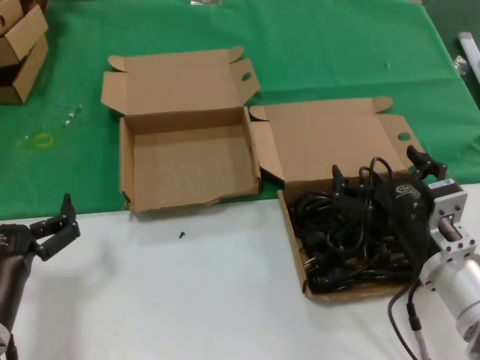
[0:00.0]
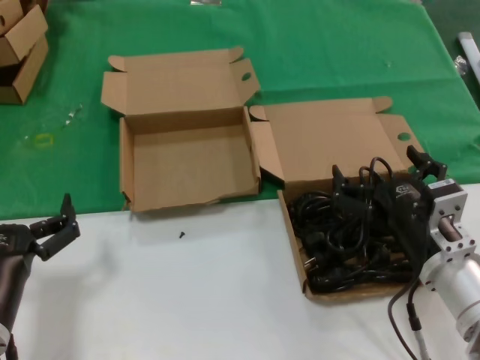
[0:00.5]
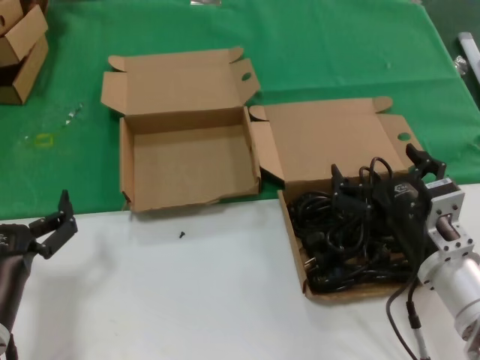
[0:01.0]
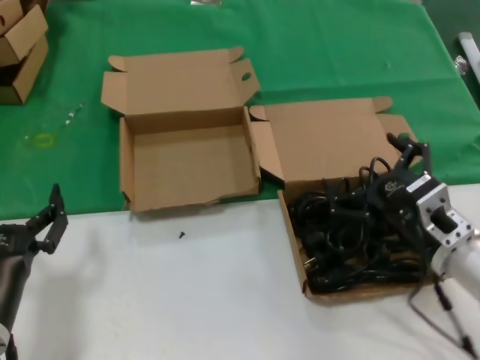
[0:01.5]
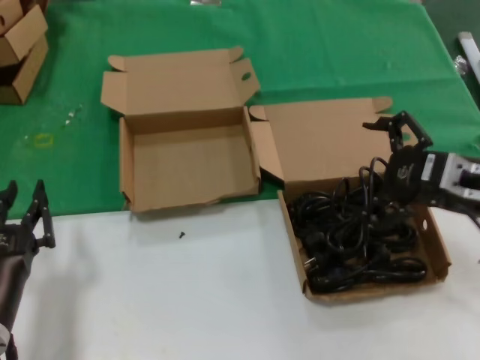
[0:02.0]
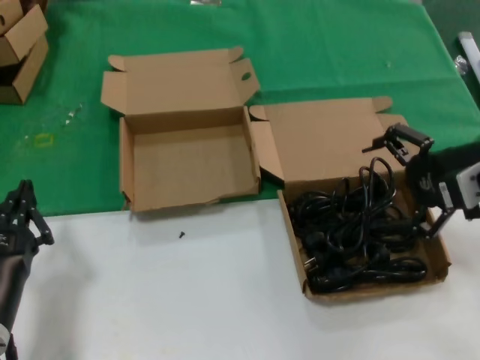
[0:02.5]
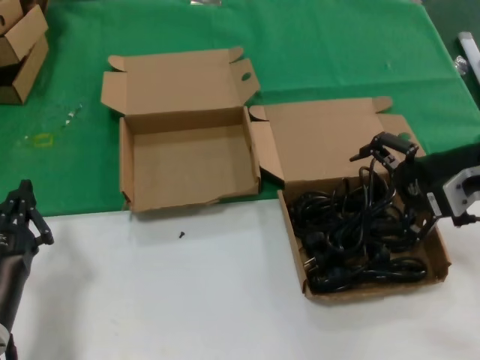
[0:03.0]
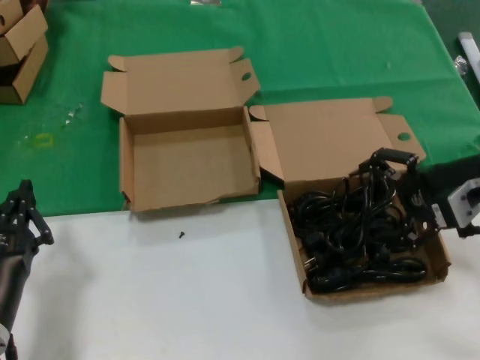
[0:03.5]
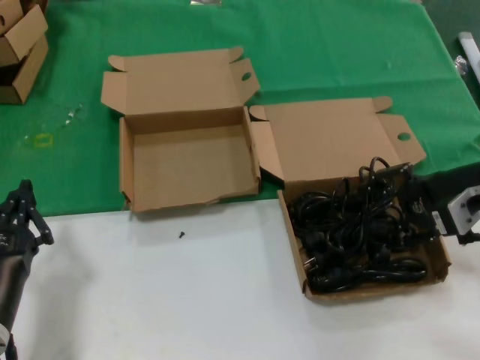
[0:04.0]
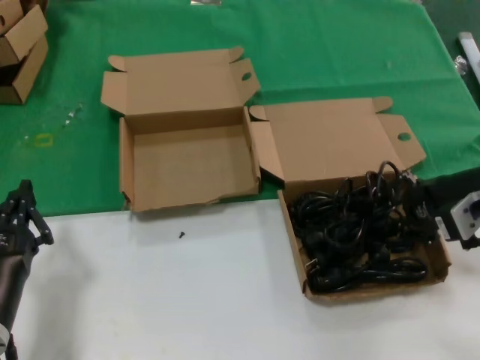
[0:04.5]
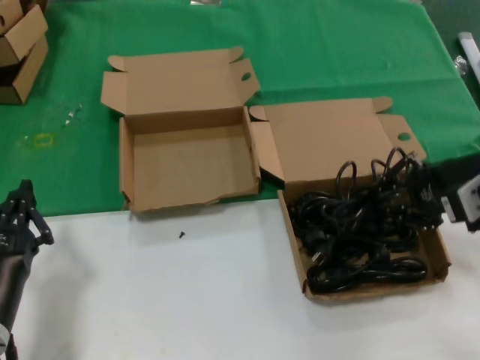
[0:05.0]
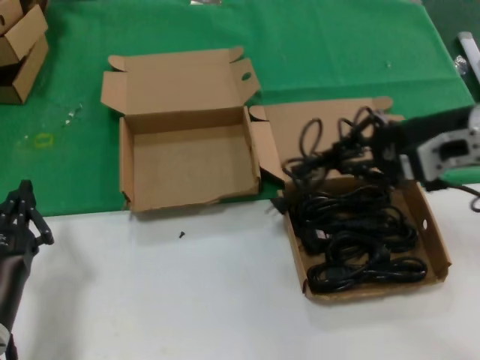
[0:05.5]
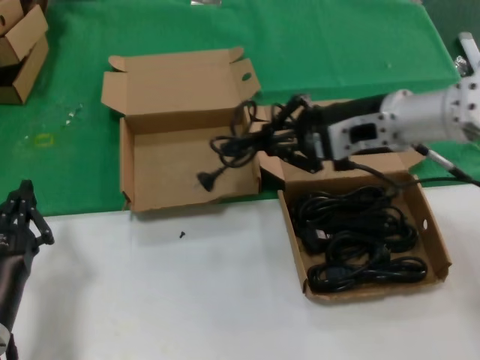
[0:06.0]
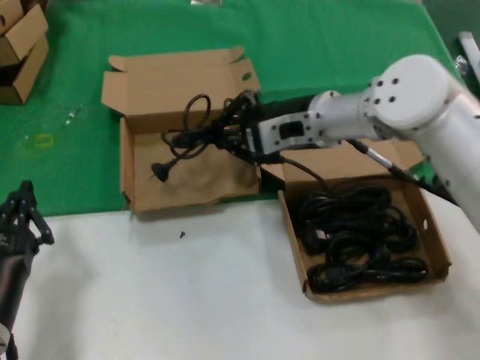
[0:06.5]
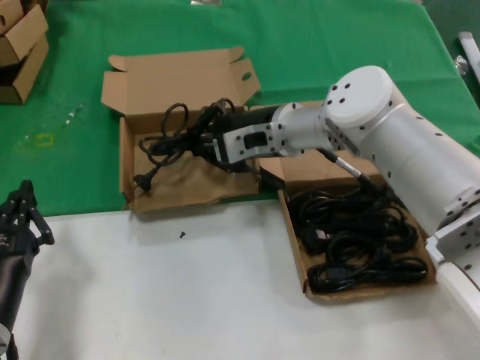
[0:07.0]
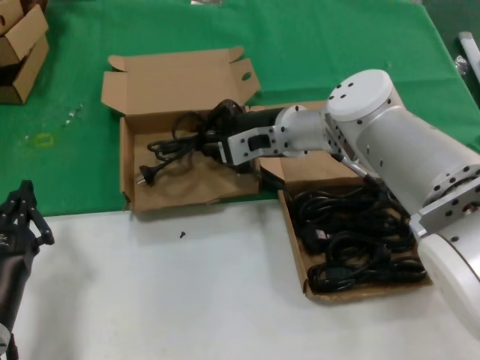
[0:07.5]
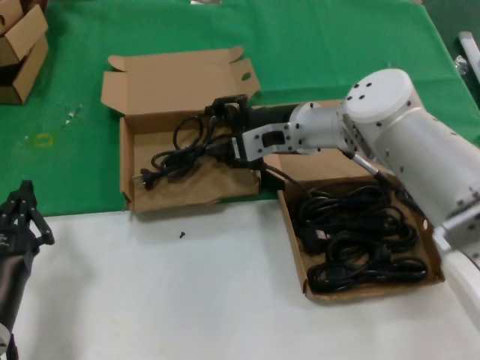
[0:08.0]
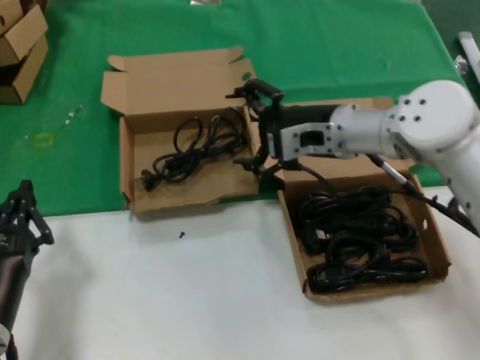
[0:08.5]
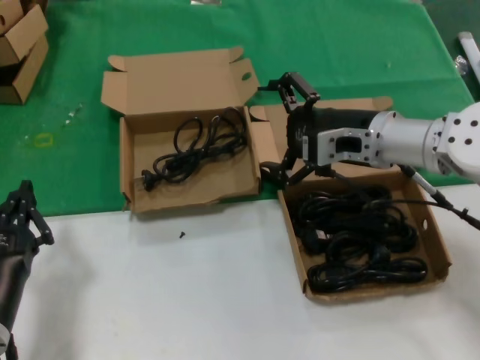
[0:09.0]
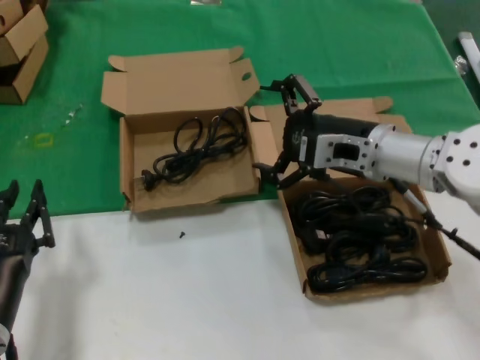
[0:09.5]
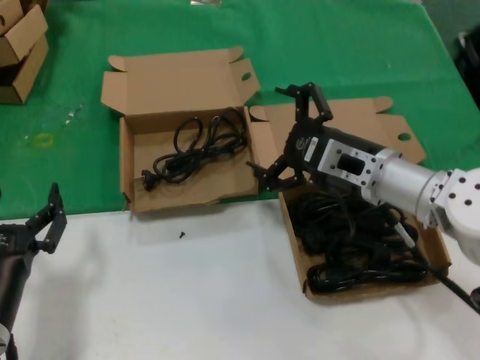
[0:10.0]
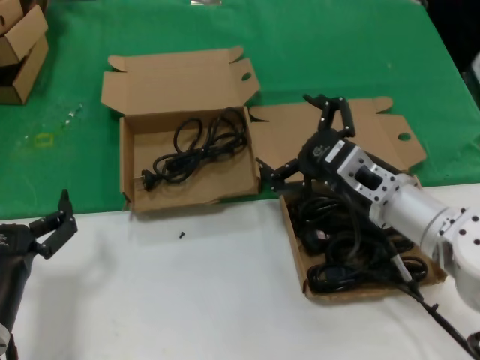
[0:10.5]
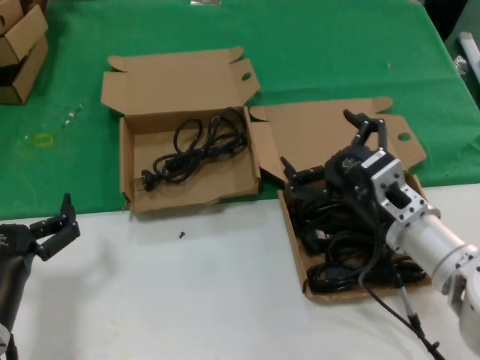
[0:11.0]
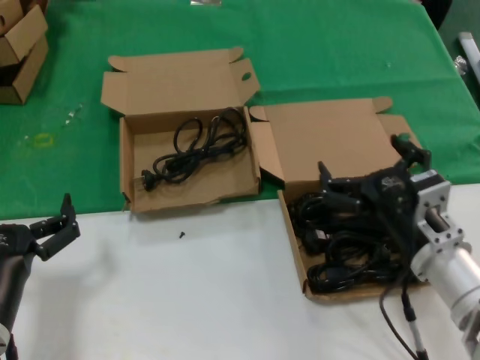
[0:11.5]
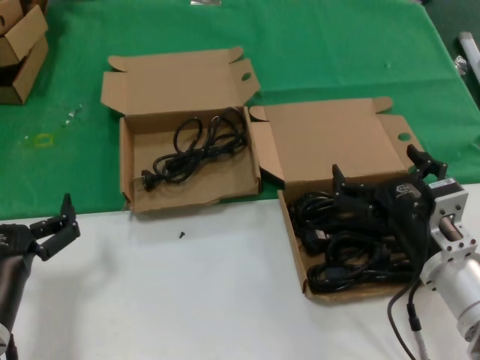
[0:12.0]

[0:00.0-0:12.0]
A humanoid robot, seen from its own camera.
Task of the whole recording: take the parts from the box containing them and put them into an empty box.
Step, 0:00.0 to 0:04.0: Grasp the data cable.
Step, 0:04.5 to 0:07.5: Place the data cable in the another box.
0:00.0 to 0:02.0: The right hand heads upward, to the right and forward, covering approximately 15 cm.
0:02.0 to 0:04.0: The right hand shifts by approximately 5 cm.
0:04.0 to 0:06.0: The right hand moves to the left, upward and forward, some 15 cm.
0:06.0 to 0:08.0: The right hand shifts roughly 15 cm to the left, forward and downward.
0:08.0 to 0:10.0: The right hand shifts roughly 15 cm backward and to the right.
0:10.0 to 0:12.0: The right hand shifts some 15 cm backward and downward.

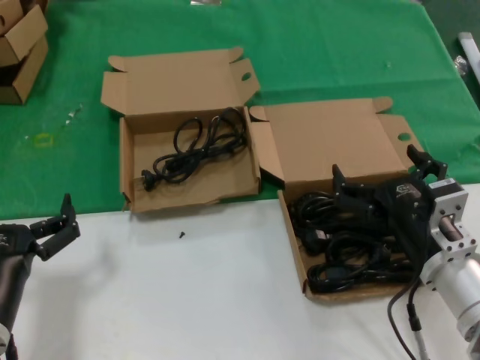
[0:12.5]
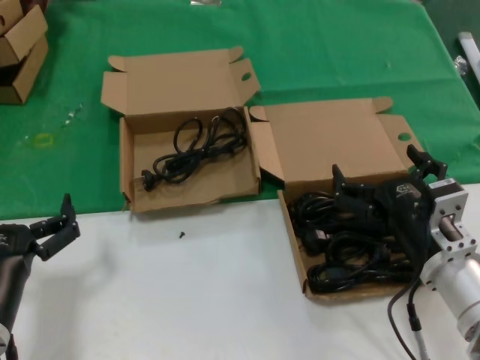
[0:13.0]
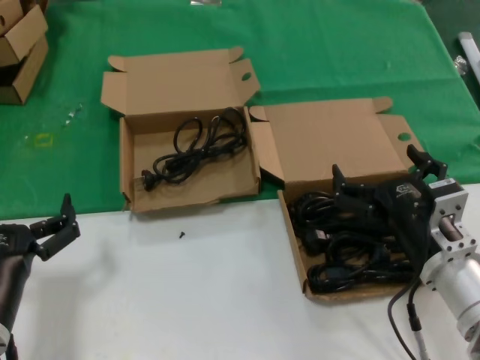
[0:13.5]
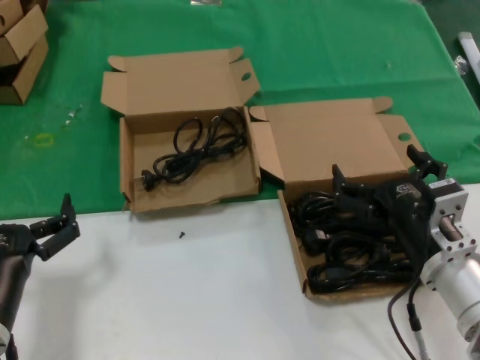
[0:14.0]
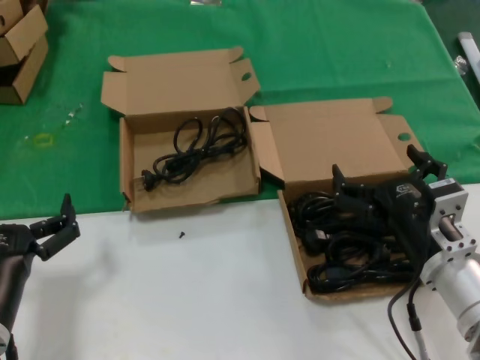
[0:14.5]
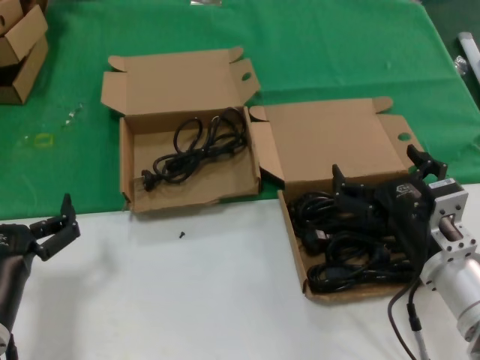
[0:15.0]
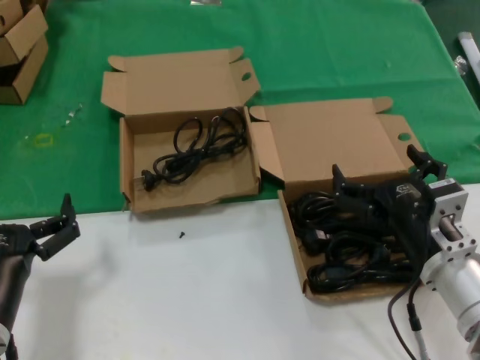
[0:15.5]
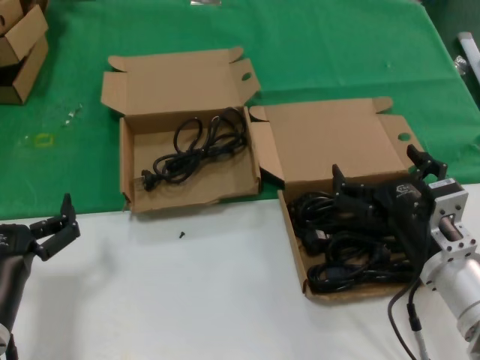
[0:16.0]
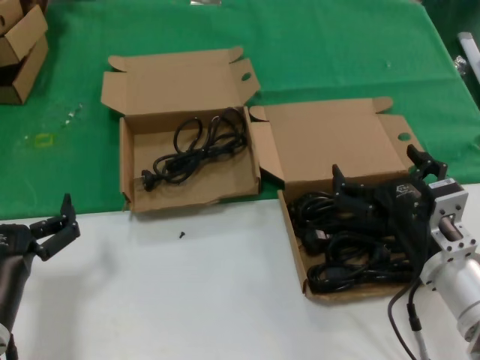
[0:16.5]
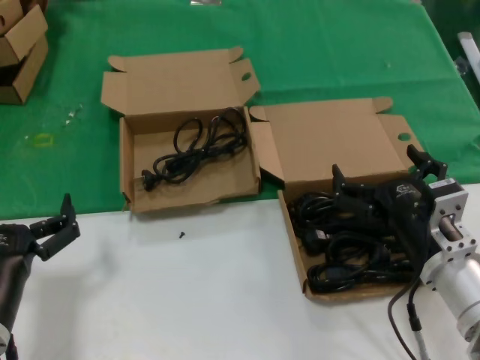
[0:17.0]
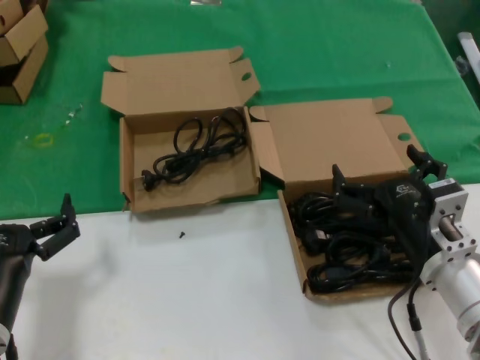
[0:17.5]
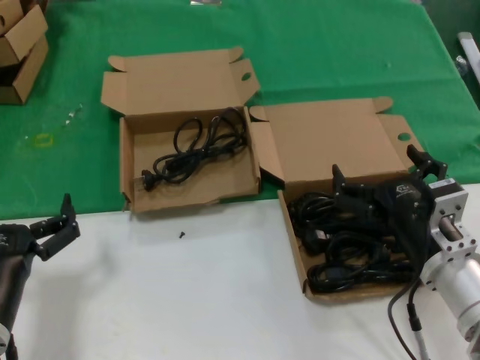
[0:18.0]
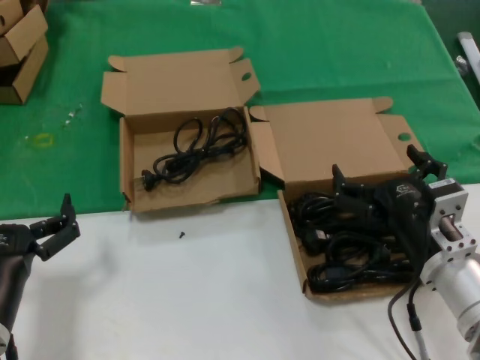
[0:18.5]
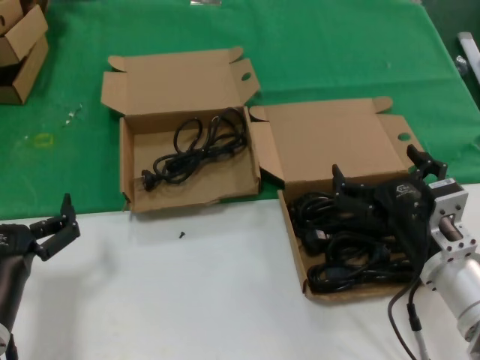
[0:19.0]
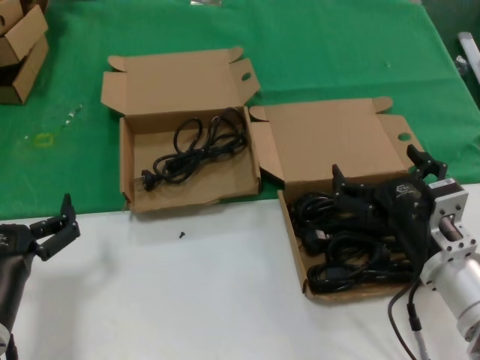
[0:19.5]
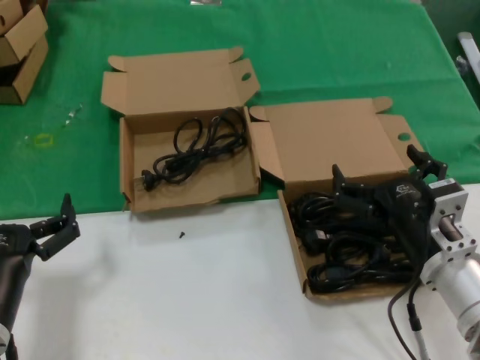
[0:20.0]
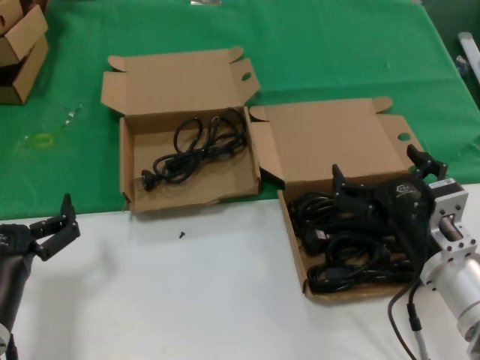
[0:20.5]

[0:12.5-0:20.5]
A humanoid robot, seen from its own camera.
Task of the whole recording: take the parts from the box containing them and put them into an empty box.
0:12.5 to 0:20.5: Both hands stay about where they are.

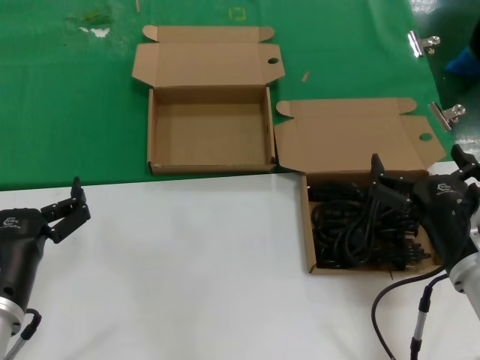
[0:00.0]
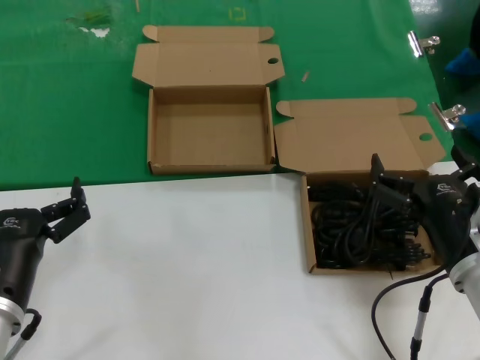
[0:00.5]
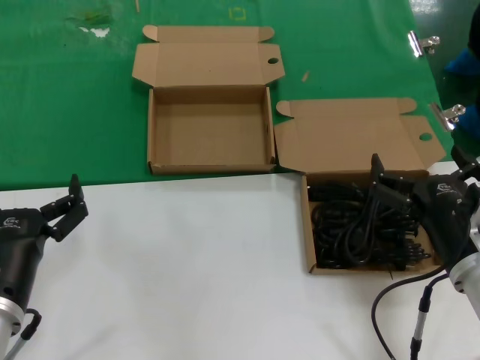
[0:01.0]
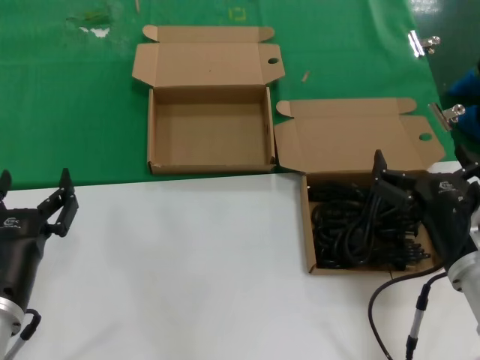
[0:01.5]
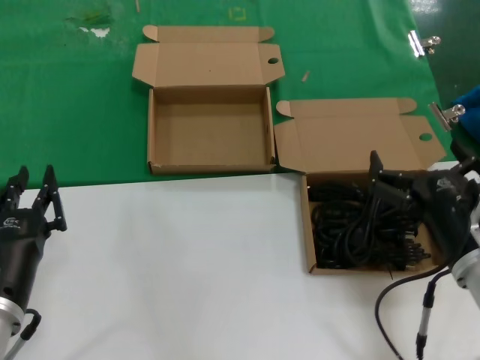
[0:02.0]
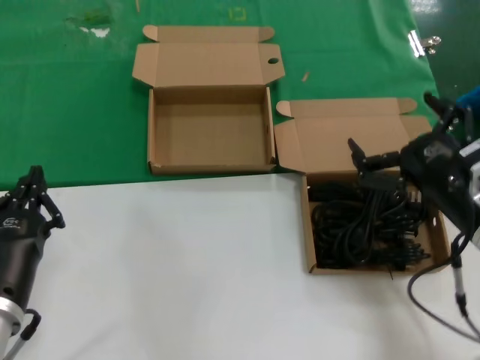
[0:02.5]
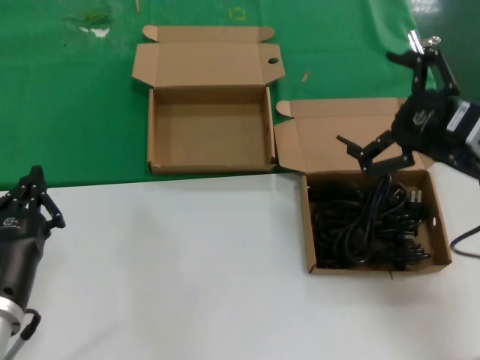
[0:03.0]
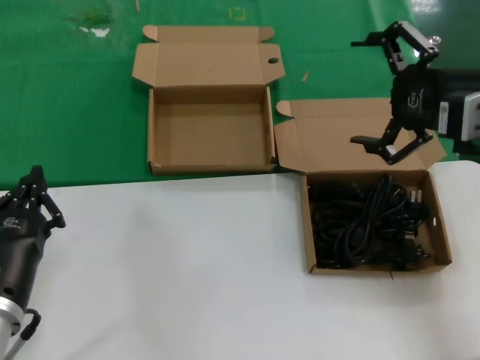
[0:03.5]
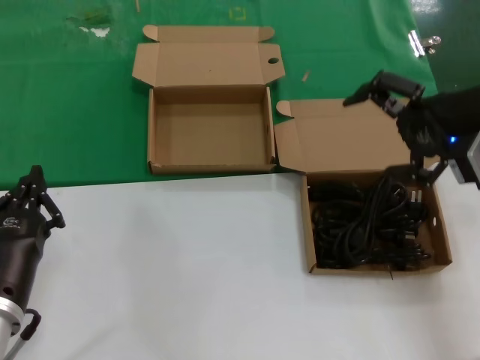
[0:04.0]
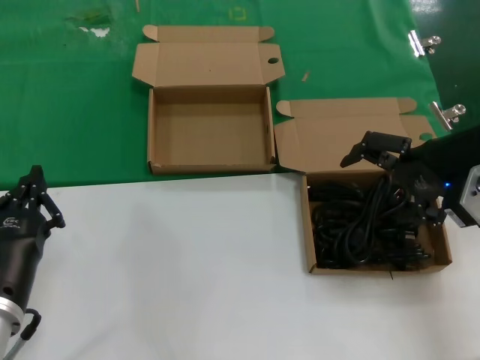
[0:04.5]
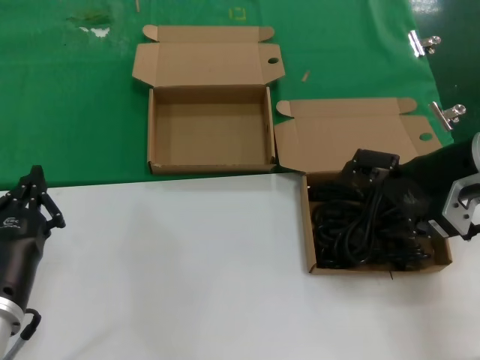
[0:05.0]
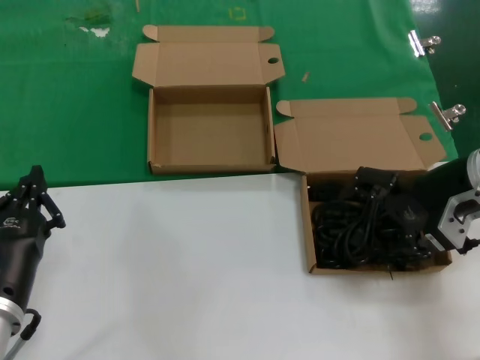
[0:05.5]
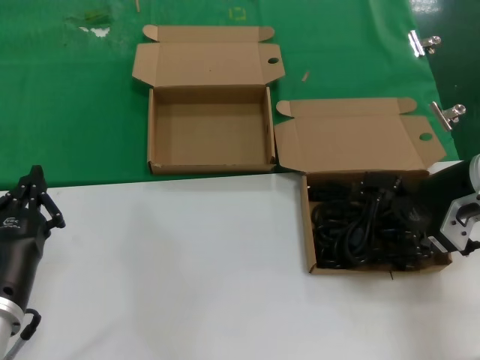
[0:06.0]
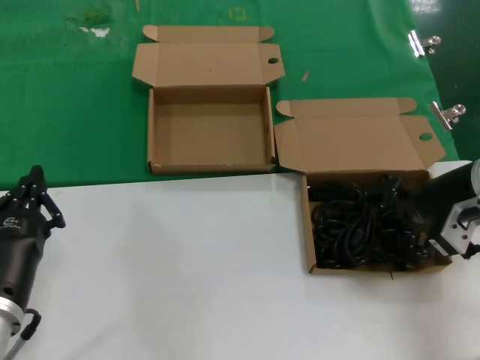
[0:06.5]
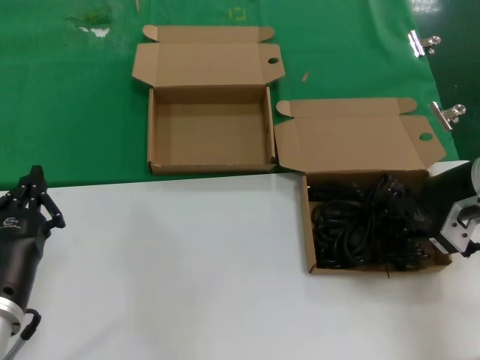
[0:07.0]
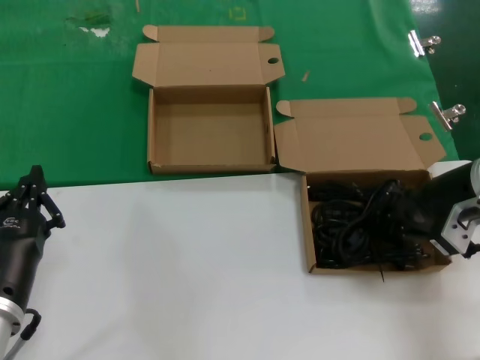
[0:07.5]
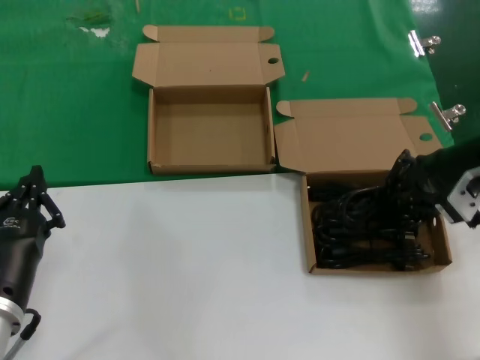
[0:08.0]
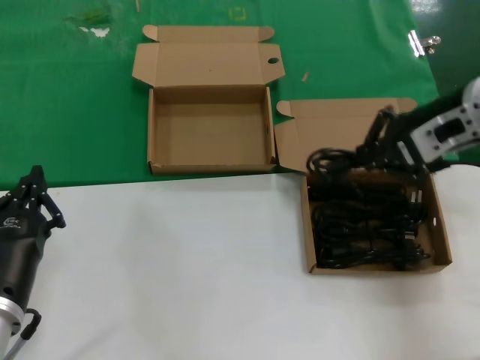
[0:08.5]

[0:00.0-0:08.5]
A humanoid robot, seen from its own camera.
Task of the whole recording: take the parts from the box containing them and put them into an empty box.
Step, 0:00.0 to 0:07.0: Grasp the data cable.
0:00.0 to 0:02.0: Both hands stay about where they are.
0:02.0 to 0:04.0: The right hand travels upward and forward by roughly 25 cm.
0:04.0 to 0:06.5: The right hand goes about 10 cm downward.
0:06.5 to 0:08.5: The right hand is displaced upward by some 10 cm.
